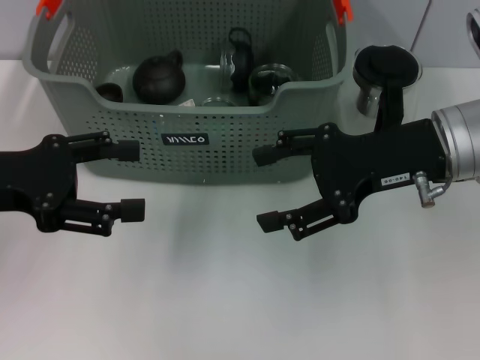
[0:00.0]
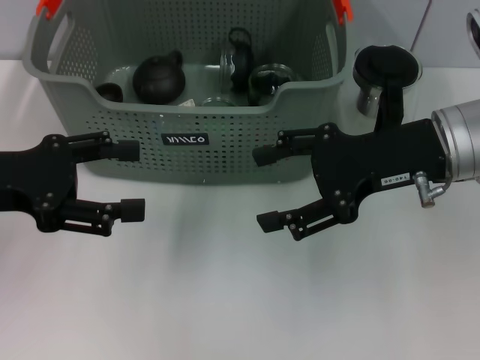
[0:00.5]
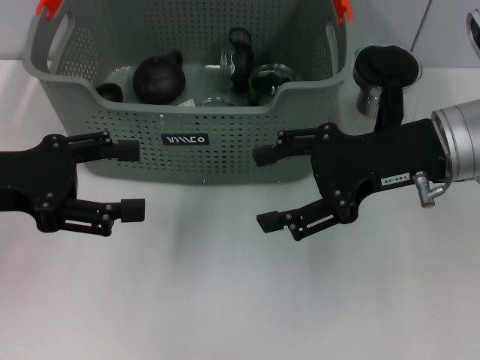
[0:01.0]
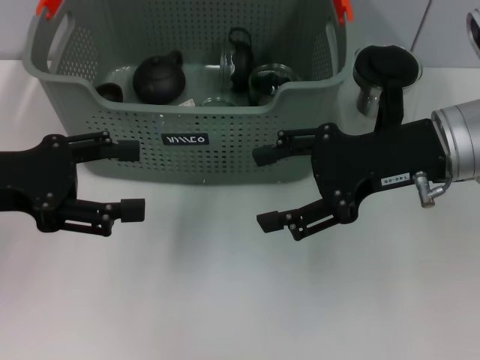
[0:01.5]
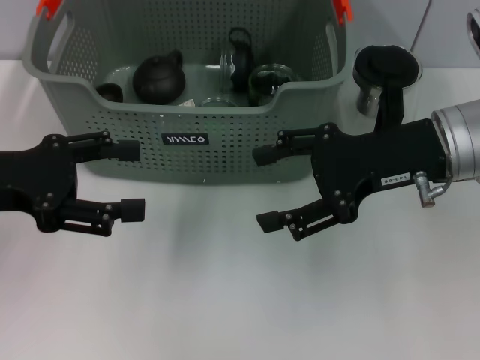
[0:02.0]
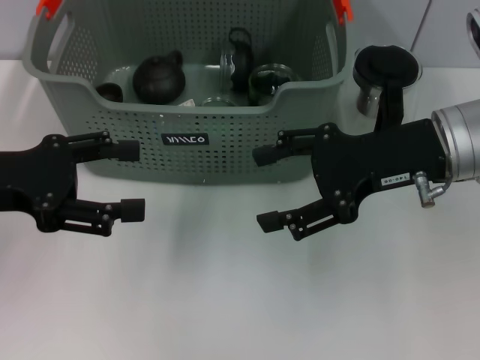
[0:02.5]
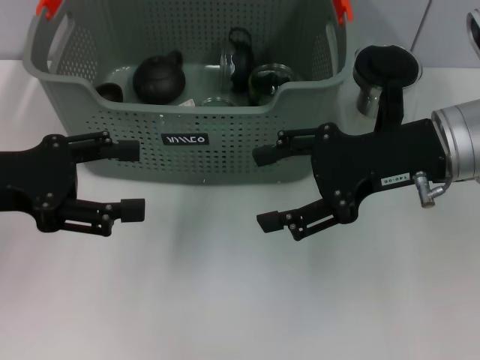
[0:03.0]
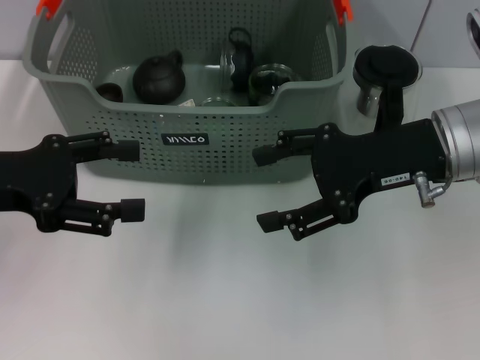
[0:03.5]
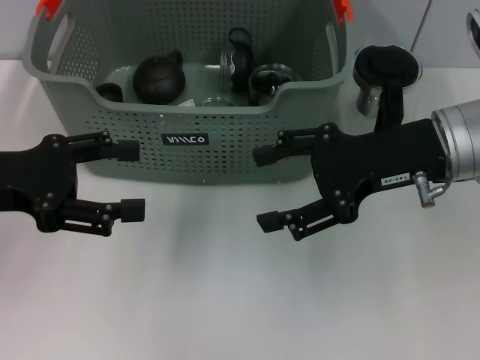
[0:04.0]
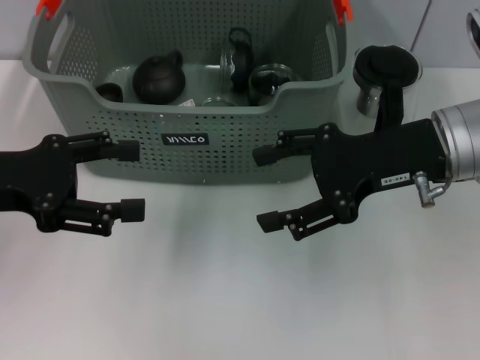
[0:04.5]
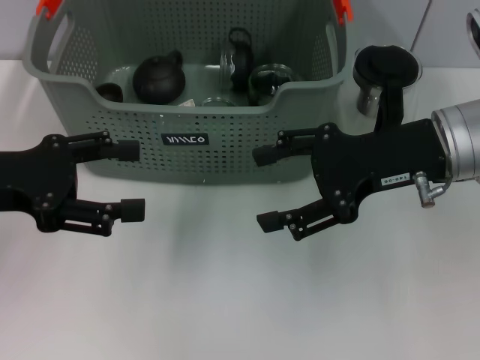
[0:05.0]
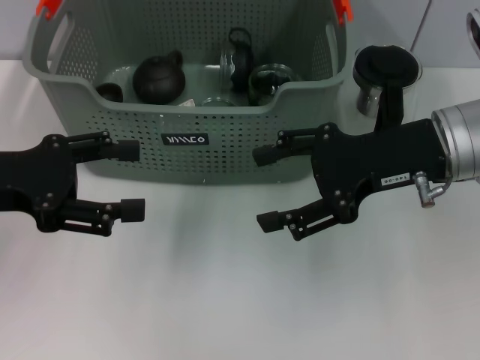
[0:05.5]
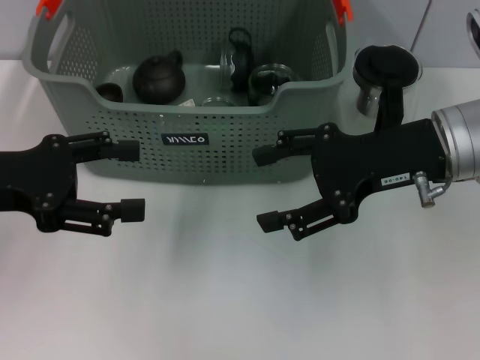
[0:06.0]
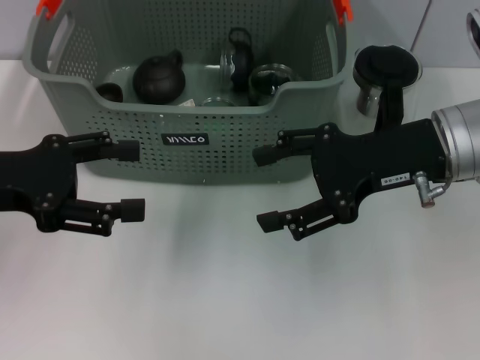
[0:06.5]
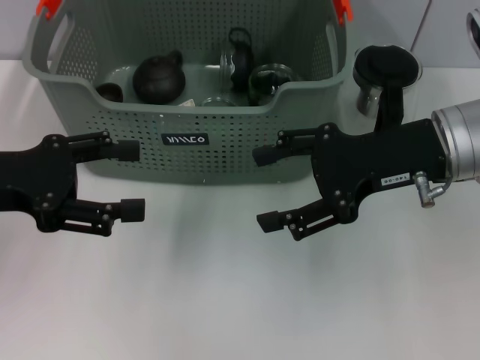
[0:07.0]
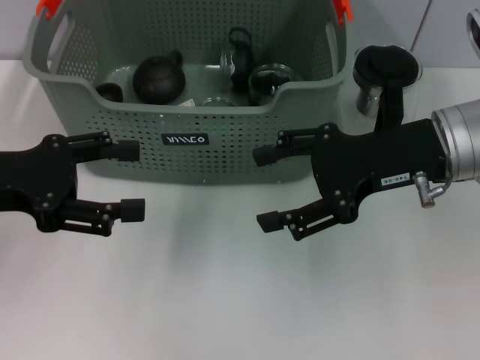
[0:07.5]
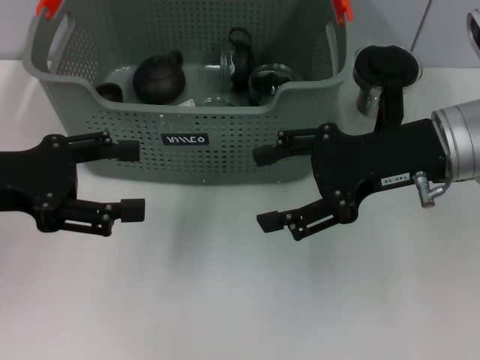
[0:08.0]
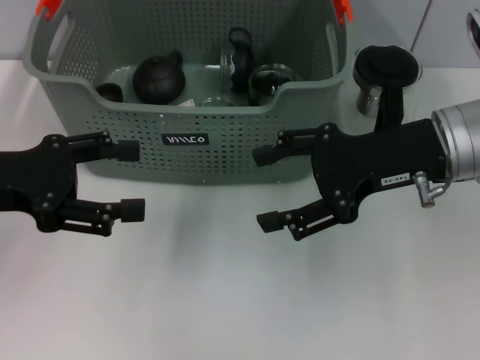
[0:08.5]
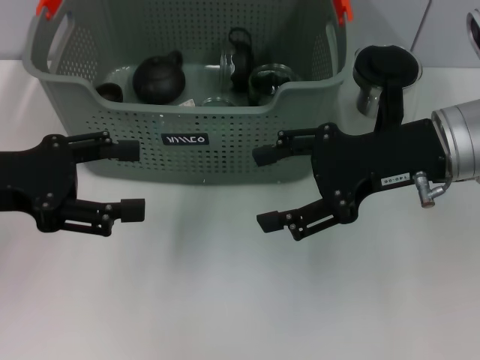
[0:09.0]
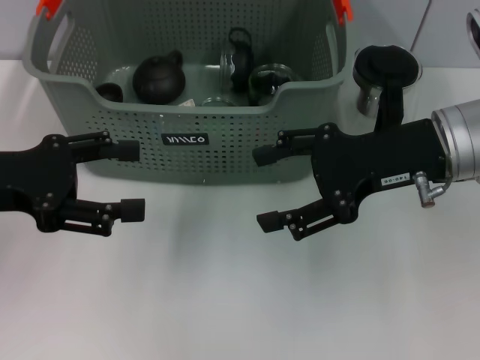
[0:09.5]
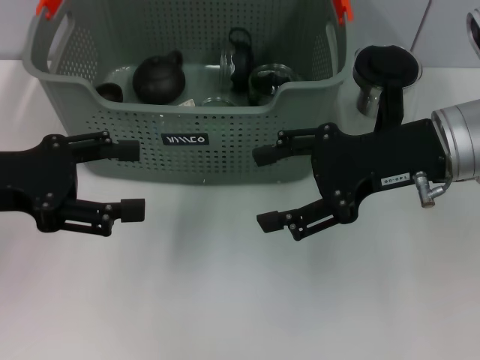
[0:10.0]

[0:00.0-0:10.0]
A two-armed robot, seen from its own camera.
Task of the whole recording: pick up the teacup on the table and place it into the storage bin, pick up the block on the table and place it into the storage bin.
0:00.0 to 0:10.0: Neither gripper changes place.
